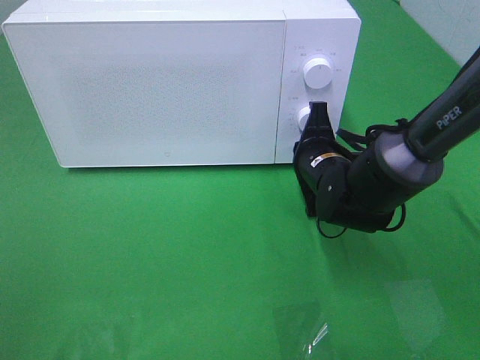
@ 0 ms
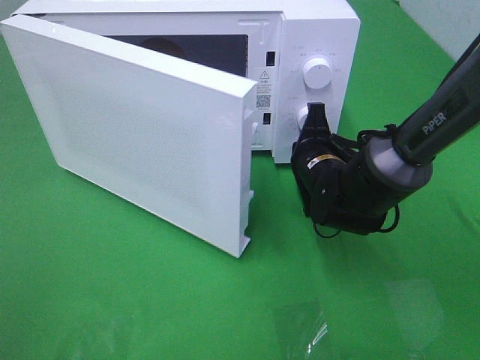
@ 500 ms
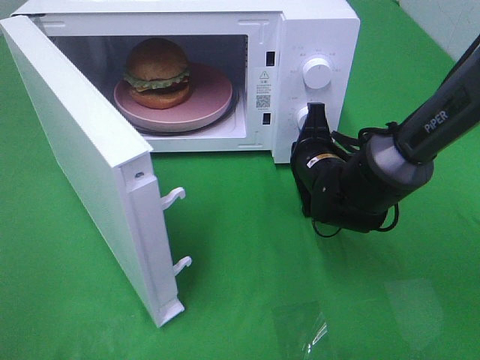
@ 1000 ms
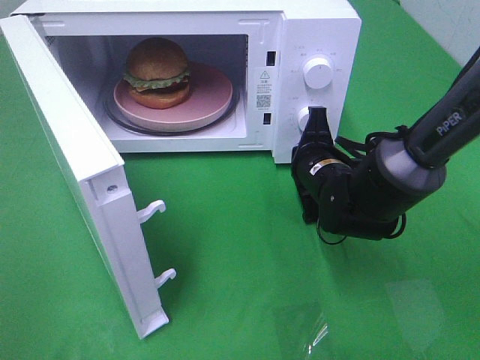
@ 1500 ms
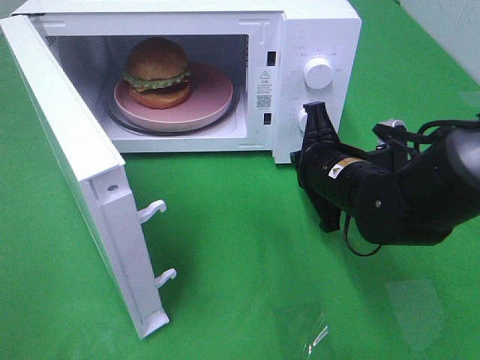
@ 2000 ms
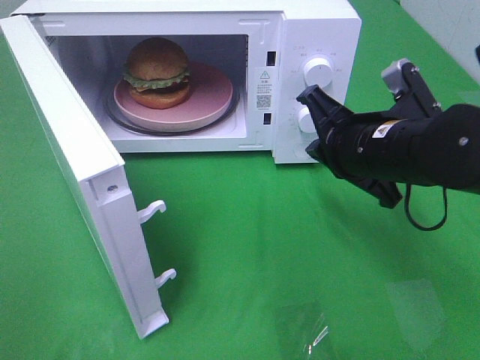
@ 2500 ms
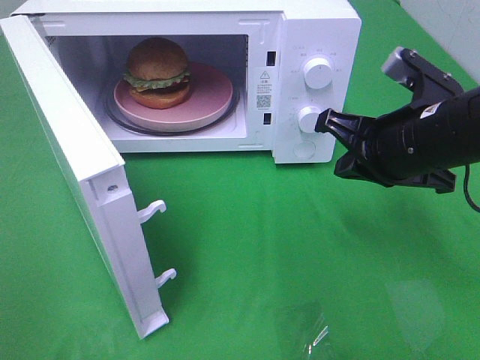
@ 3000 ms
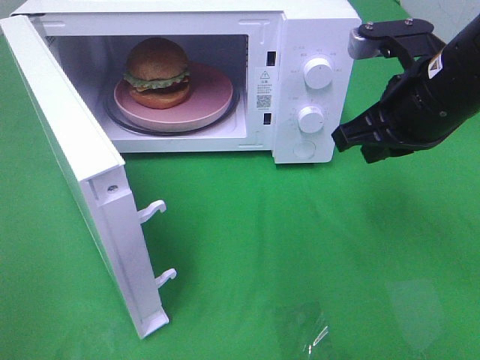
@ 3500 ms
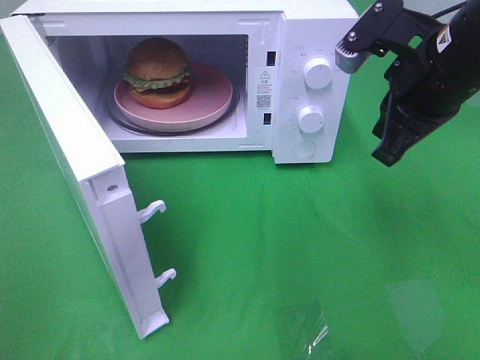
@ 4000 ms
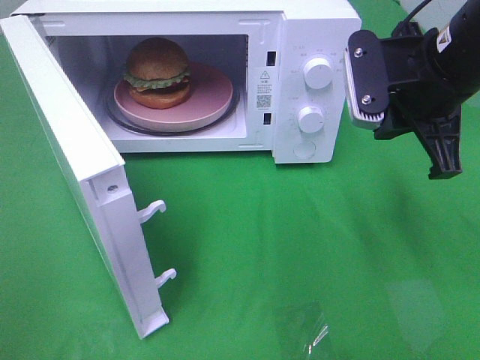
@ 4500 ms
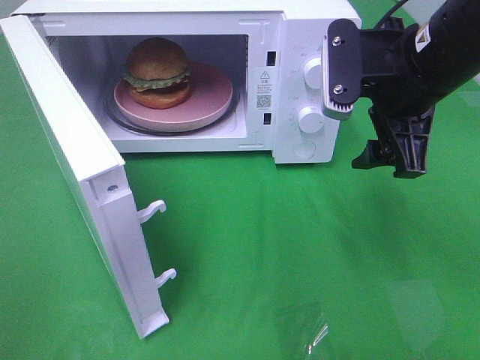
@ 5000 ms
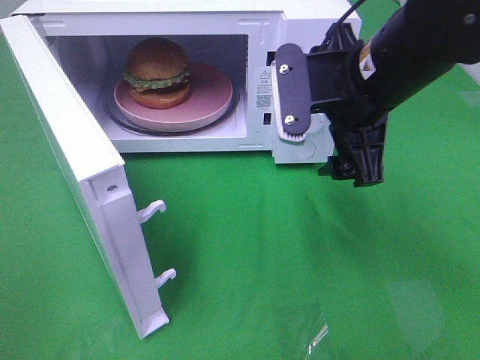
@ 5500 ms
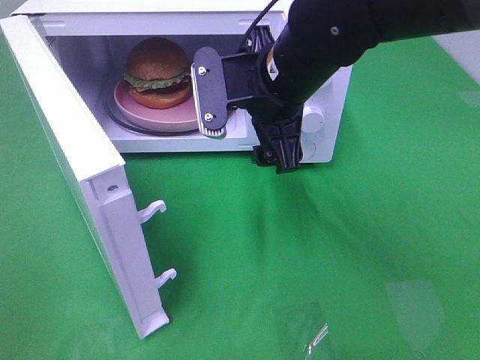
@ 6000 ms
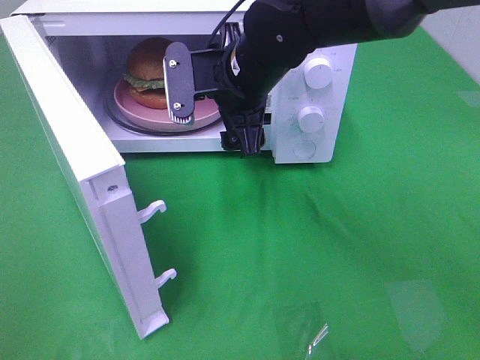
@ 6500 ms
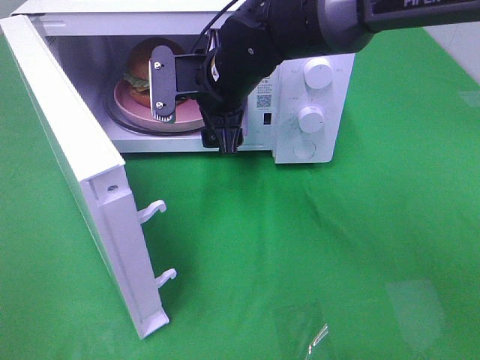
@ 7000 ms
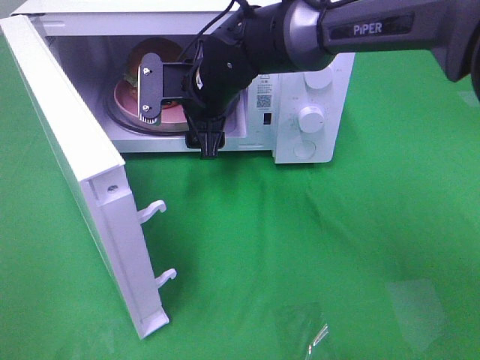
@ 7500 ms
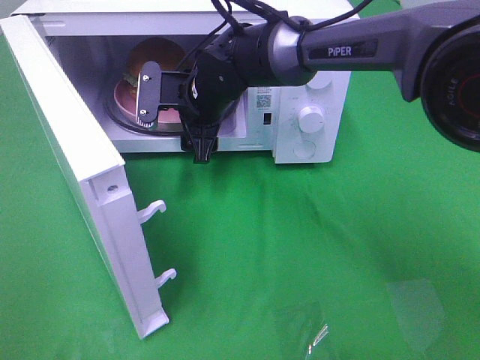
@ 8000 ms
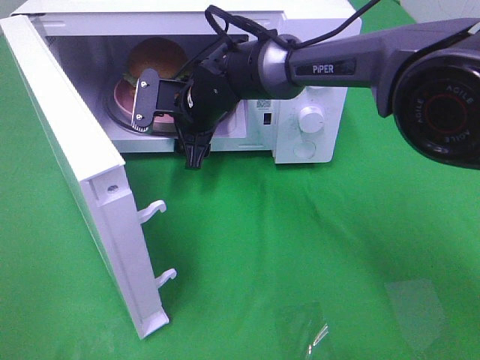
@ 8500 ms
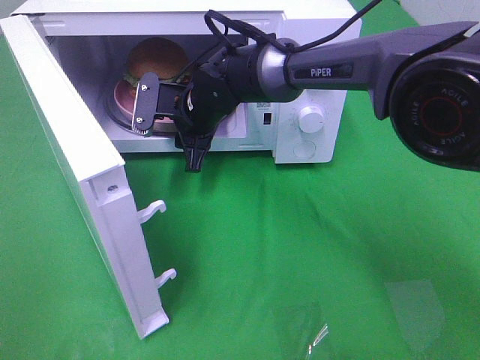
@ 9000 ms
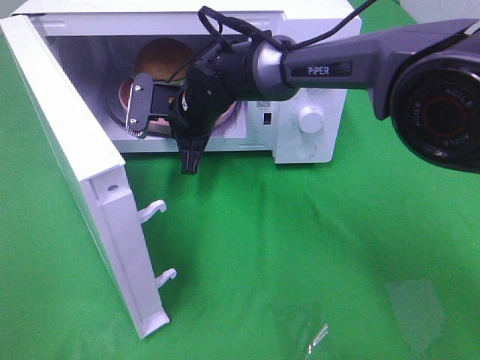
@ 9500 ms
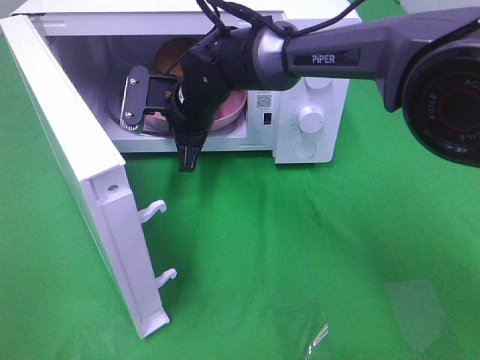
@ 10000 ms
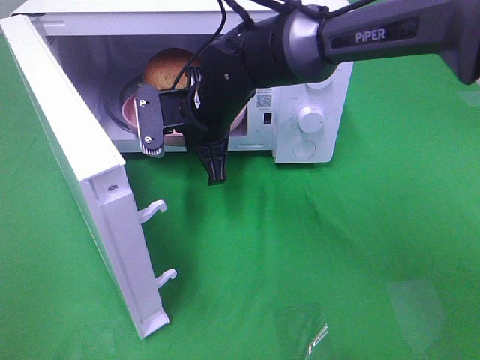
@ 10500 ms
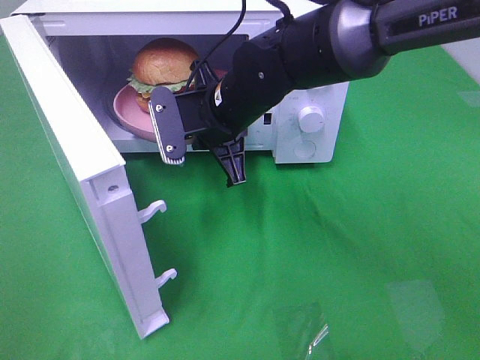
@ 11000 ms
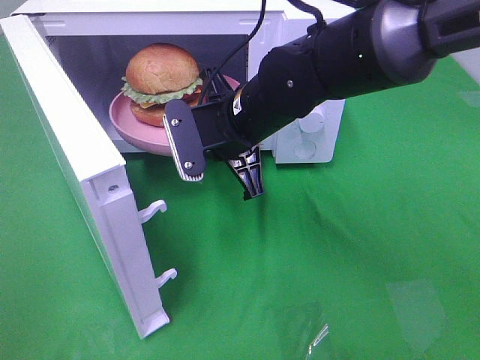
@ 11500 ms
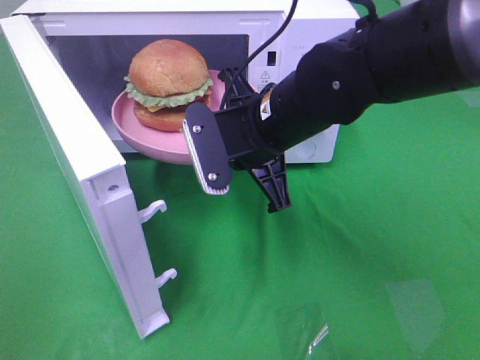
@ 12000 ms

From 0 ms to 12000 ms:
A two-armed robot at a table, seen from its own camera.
Task of the whole recording: Heat the burger.
Step, from 2000 ms to 9500 ms: Right hand: grab the plate with the hamburger.
From 0 ms to 2000 ms: The right gripper moves backward, some 5 cm.
From 2000 ms to 4000 ms: The right gripper is displaced upward and to the right by roughly 15 cm.
From 4000 ms to 6000 ms: The right gripper heads to the left, covering some 15 cm, and opens up.
From 6000 ms to 8000 ms: The right gripper is displaced forward, downward and to the left by roughly 15 cm.
From 8000 ms to 10000 ms: The right gripper closes.
From 10000 ms to 12000 ms: The right gripper moves backward and to the right, approximately 15 cm.

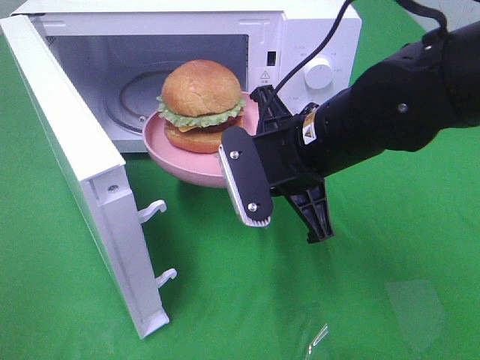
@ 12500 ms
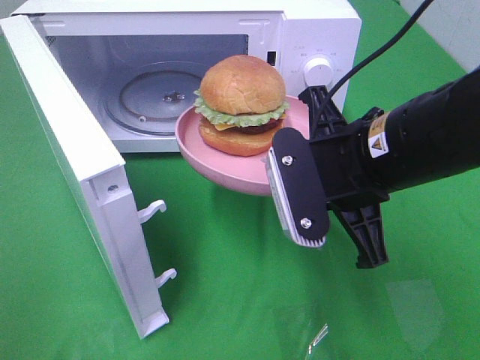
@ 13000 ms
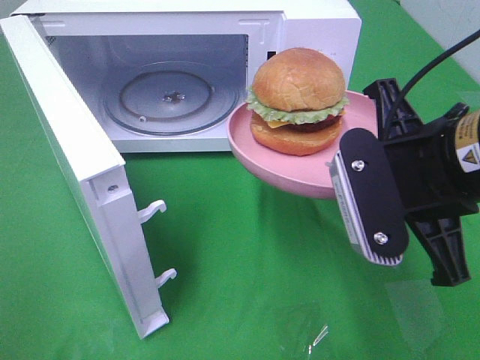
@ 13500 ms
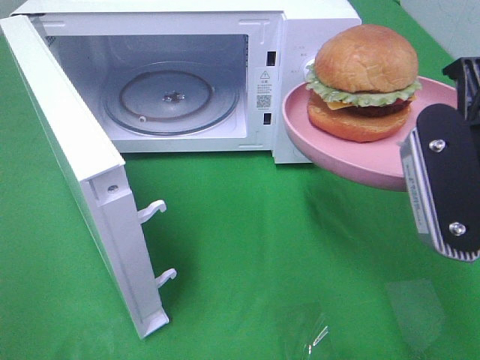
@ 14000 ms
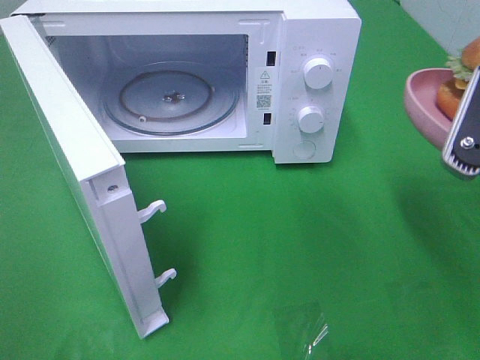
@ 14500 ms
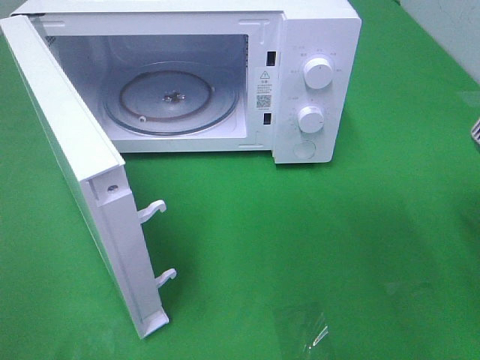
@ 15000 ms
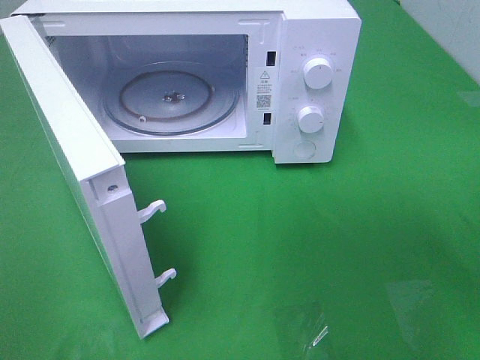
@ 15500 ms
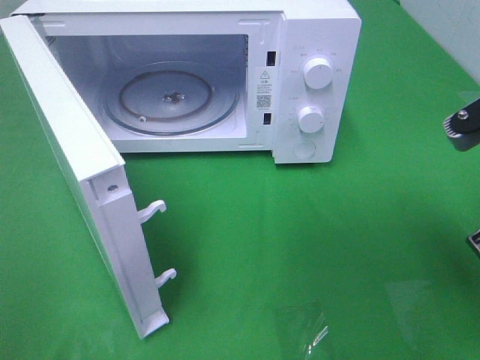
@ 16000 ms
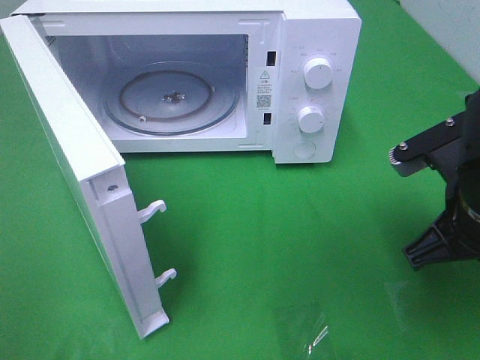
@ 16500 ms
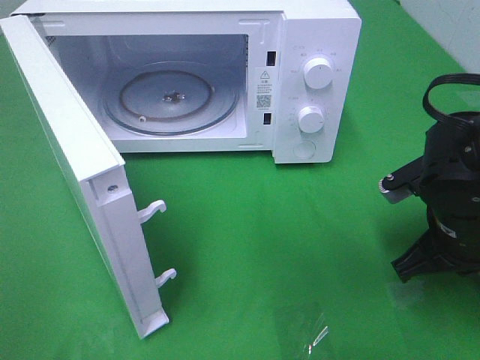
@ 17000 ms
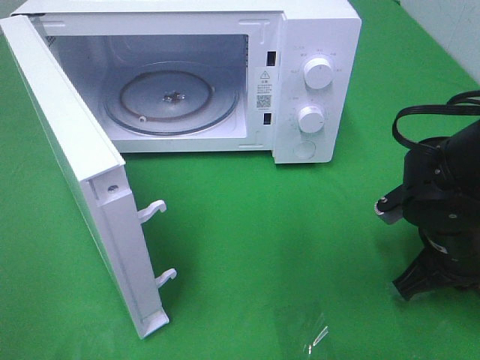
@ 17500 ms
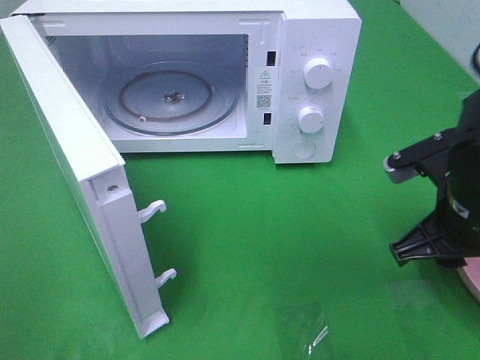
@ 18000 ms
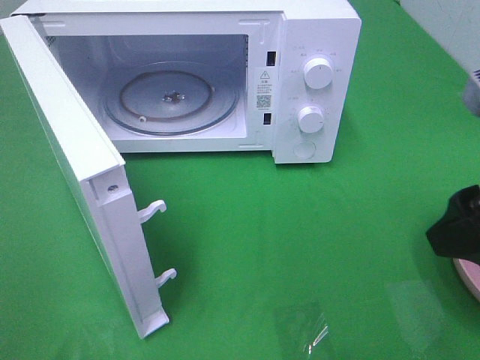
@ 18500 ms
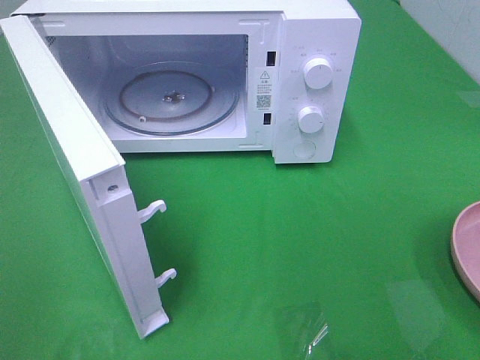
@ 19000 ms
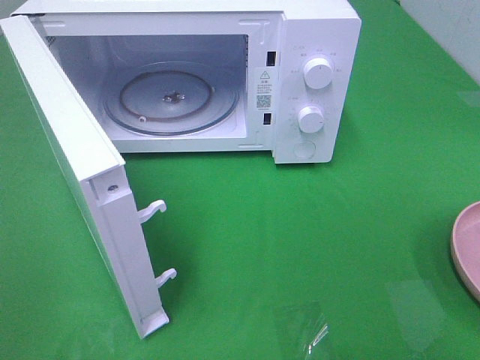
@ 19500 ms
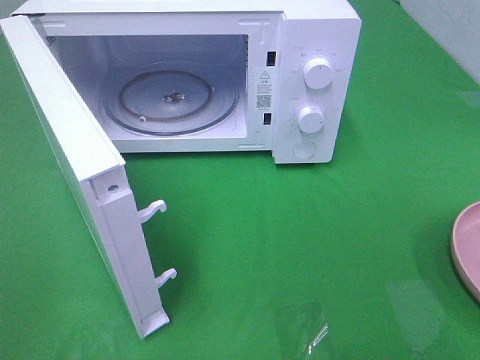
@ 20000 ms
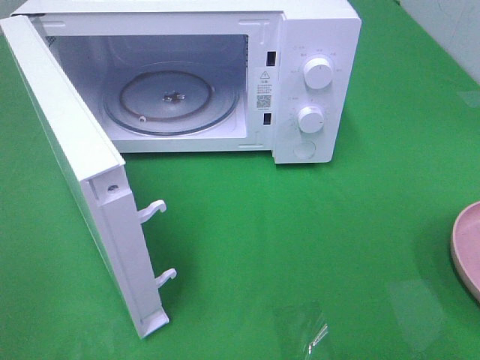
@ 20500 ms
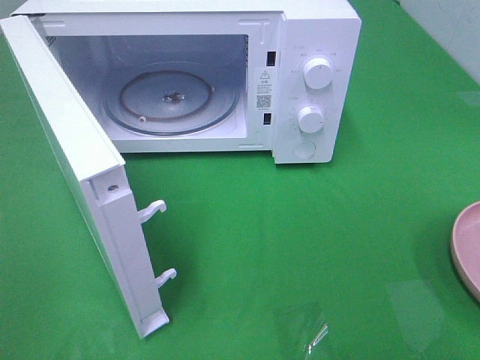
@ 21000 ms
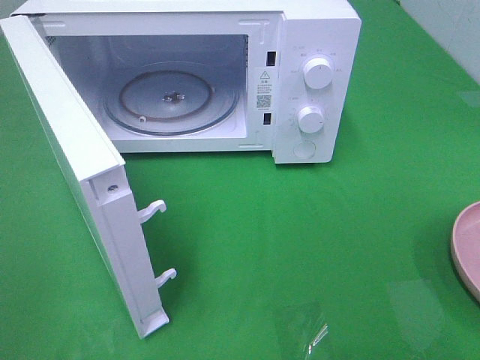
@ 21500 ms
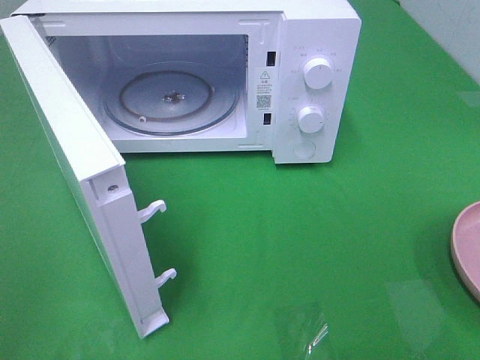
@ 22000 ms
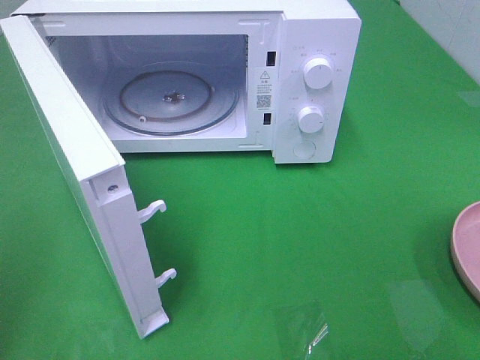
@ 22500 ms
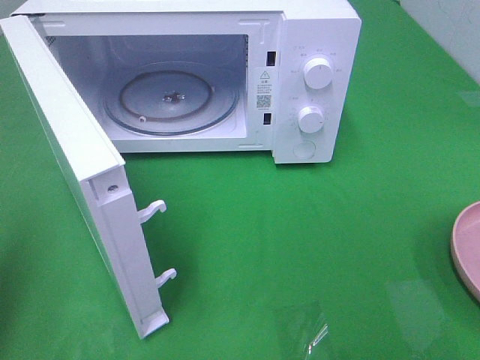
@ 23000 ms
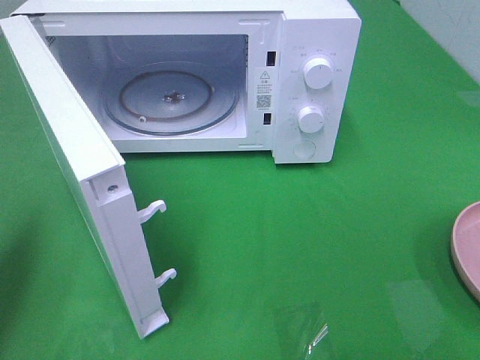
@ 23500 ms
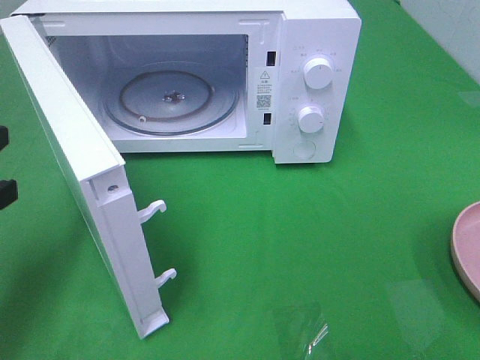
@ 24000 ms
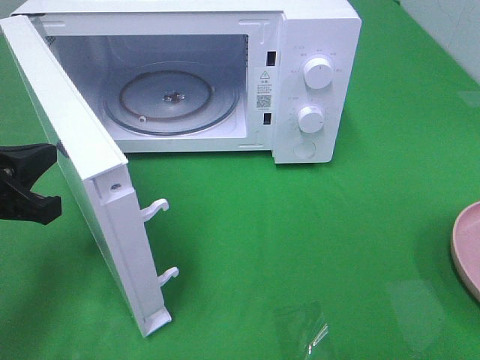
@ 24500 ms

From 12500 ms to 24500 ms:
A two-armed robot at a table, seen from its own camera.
Task of the whole recording: Heat the burger.
Step, from 12500 ms to 17500 ms: Right hand: place the plate on the table.
From 12500 ms to 14500 ms: The right gripper goes some 20 cm to the right, backward and upward.
From 14500 ms to 16500 ms: The right gripper is displaced downward by roughly 10 cm.
From 16500 ms to 18500 ms: The right gripper goes some 10 cm upward and backward, and opens.
From 18500 ms to 20500 ms: The right gripper travels backward and to the right by roughly 15 cm.
From 22500 ms to 24500 ms: The left gripper travels downward, forward and to the right by roughly 20 cm.

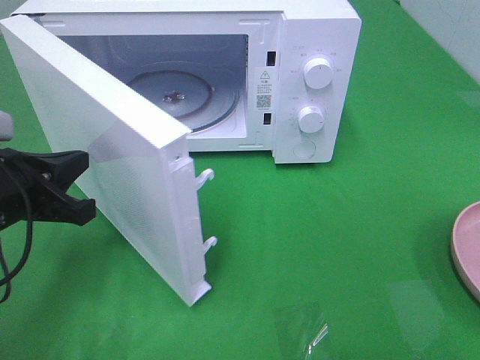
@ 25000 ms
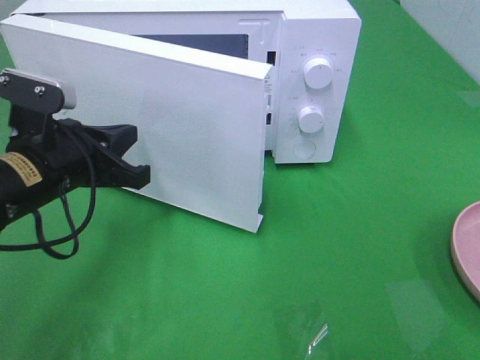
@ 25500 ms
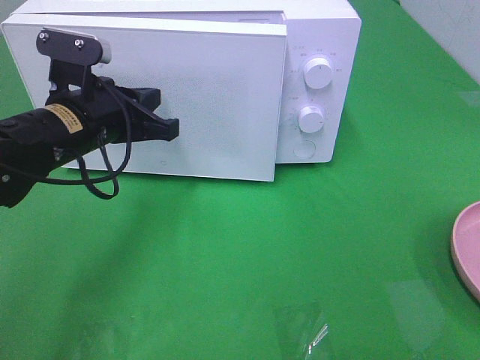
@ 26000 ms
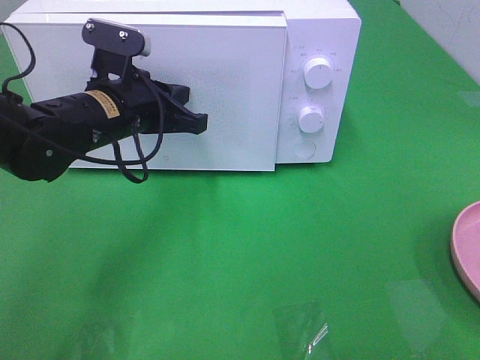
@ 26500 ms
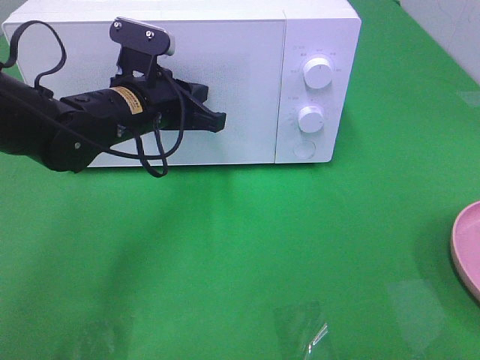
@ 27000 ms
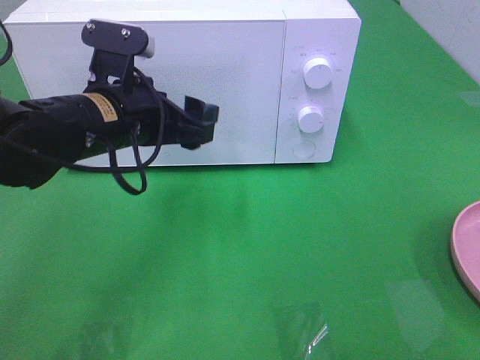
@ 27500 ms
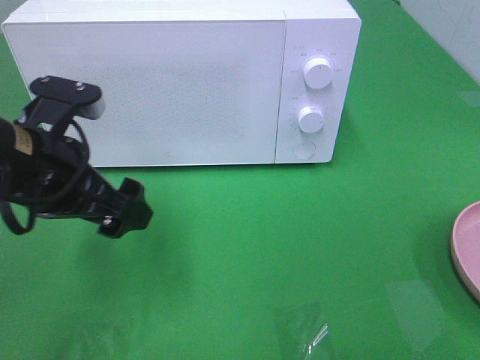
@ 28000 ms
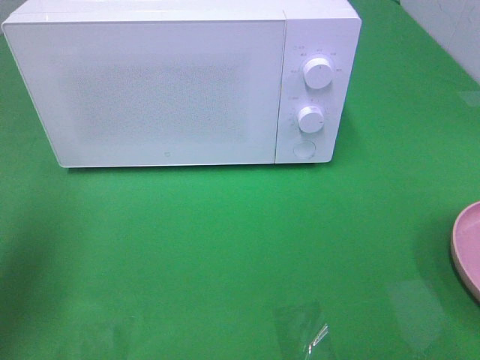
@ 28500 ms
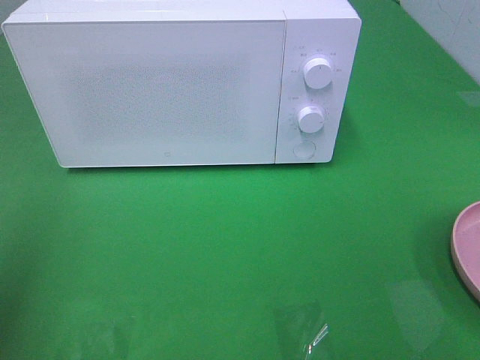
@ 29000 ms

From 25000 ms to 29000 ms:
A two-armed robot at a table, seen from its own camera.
Task of the whole recording: Heat the burger.
Step, from 25000 ms to 27000 ms: Left hand: close the microwave door.
From 25000 ms to 27000 ms: The left gripper travels forward and to the right by approximately 15 cm.
From 27000 ms to 29000 ms: The left gripper heads backward, to the left and upward, covering some 35 cm, and opens its fingers.
